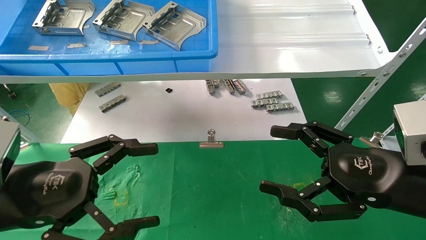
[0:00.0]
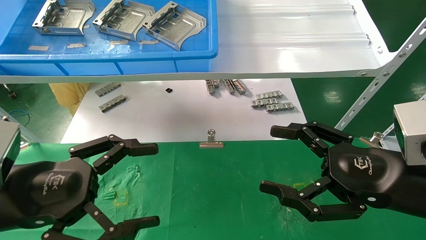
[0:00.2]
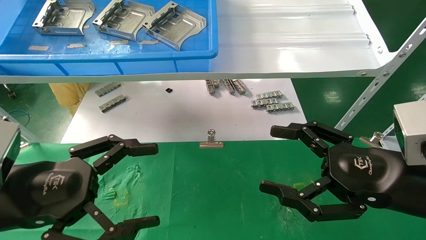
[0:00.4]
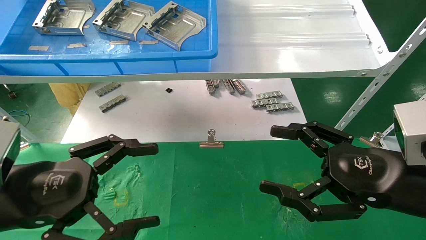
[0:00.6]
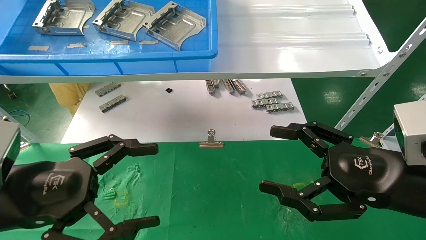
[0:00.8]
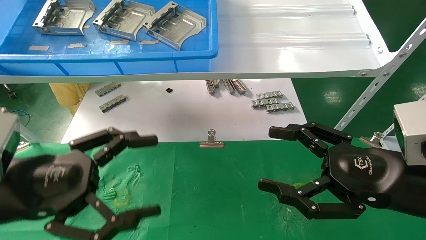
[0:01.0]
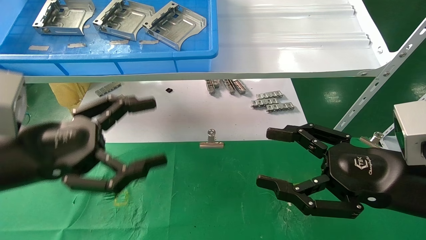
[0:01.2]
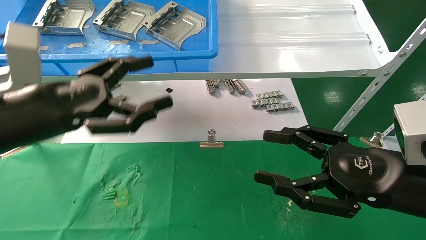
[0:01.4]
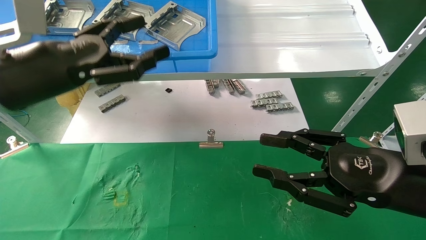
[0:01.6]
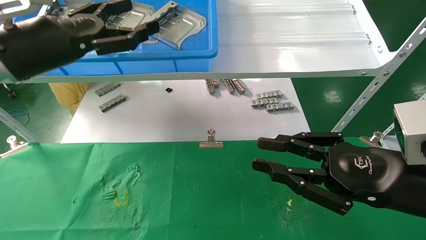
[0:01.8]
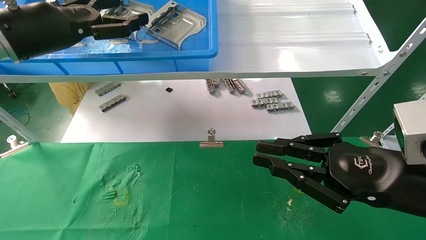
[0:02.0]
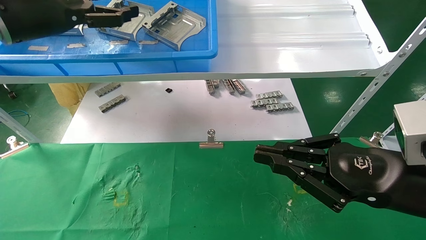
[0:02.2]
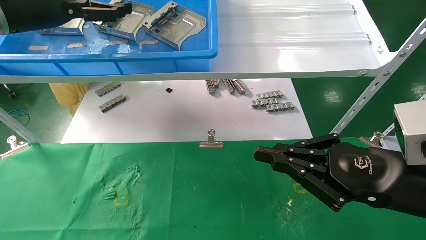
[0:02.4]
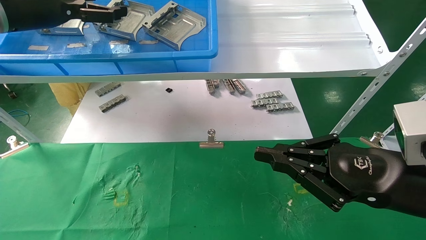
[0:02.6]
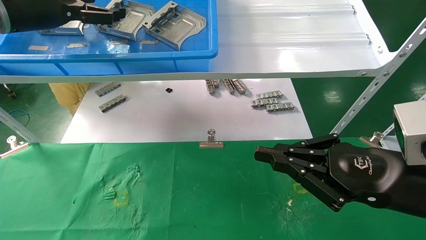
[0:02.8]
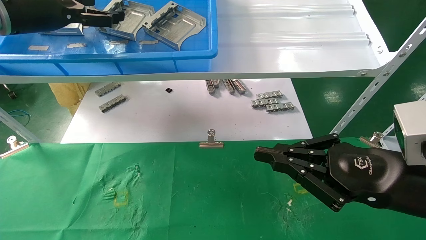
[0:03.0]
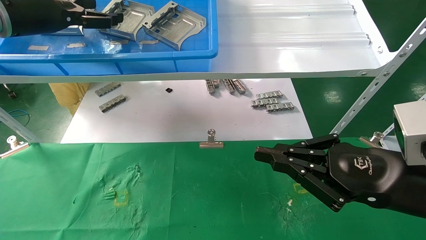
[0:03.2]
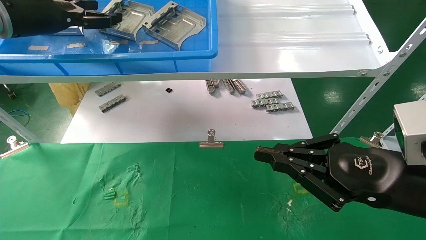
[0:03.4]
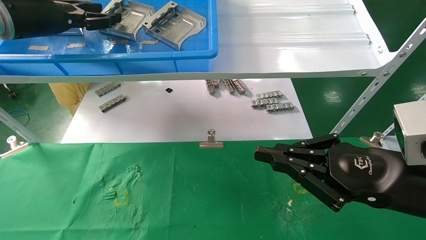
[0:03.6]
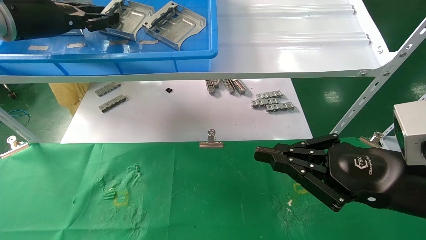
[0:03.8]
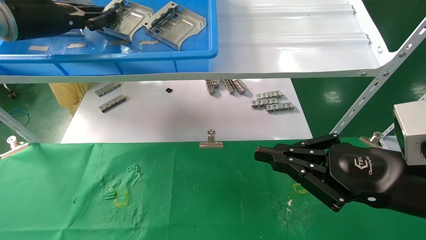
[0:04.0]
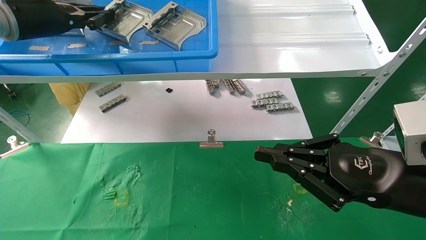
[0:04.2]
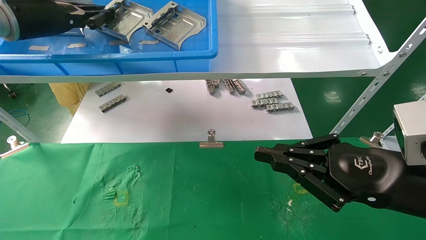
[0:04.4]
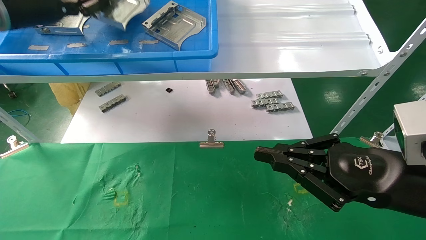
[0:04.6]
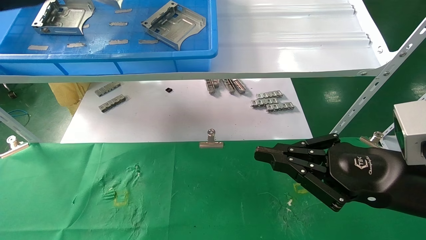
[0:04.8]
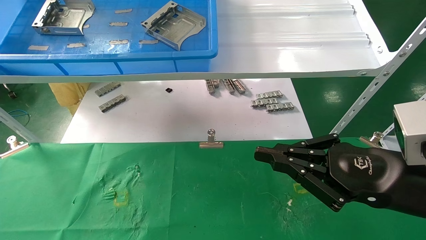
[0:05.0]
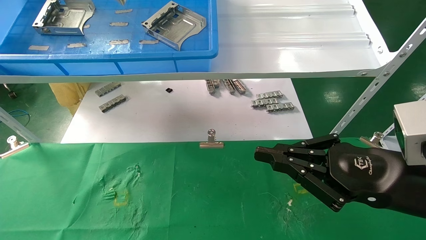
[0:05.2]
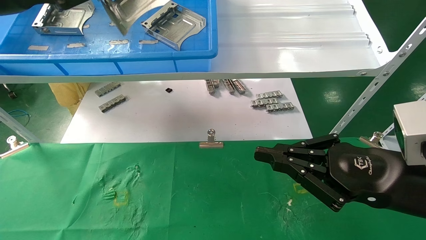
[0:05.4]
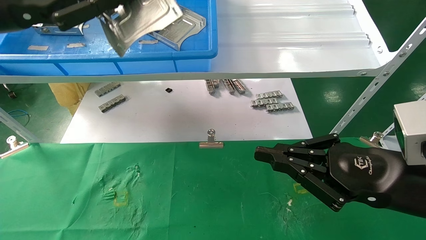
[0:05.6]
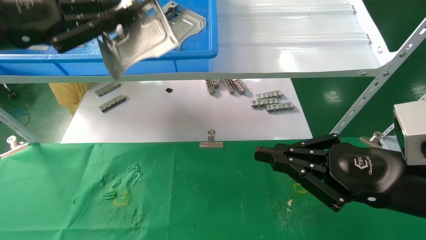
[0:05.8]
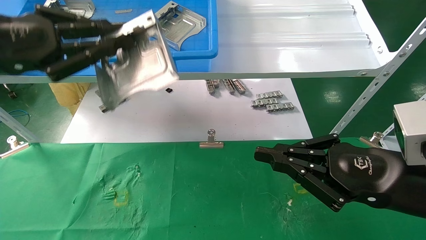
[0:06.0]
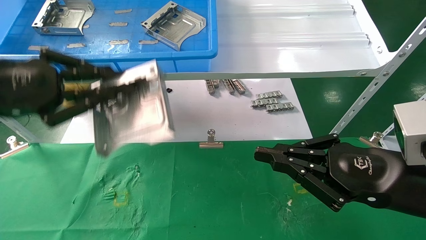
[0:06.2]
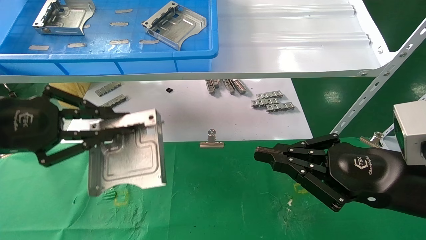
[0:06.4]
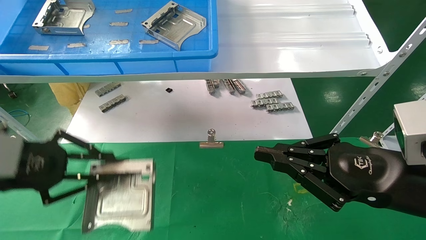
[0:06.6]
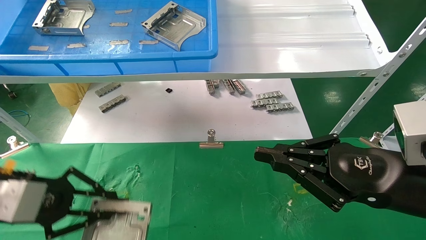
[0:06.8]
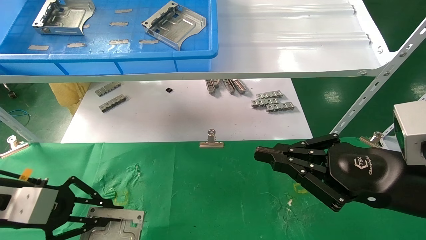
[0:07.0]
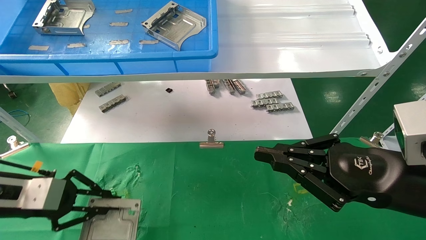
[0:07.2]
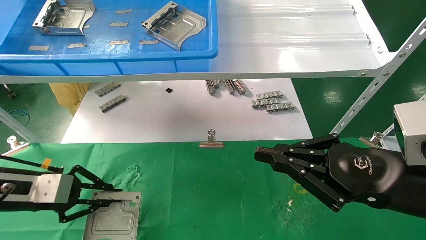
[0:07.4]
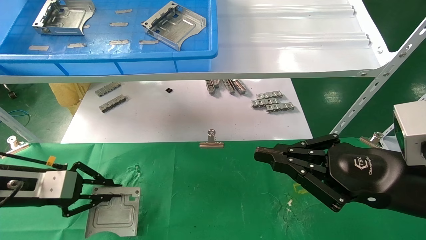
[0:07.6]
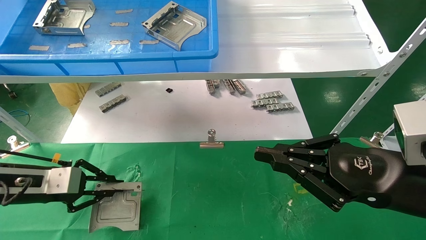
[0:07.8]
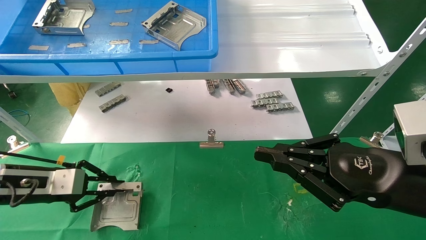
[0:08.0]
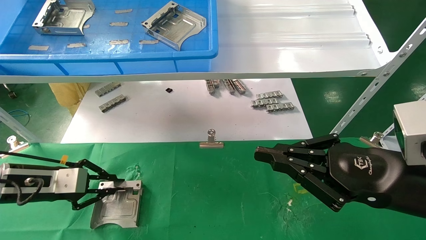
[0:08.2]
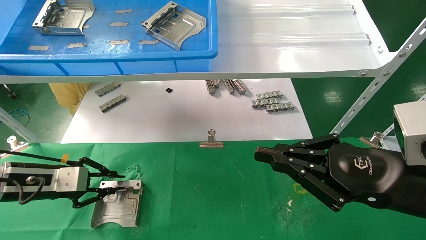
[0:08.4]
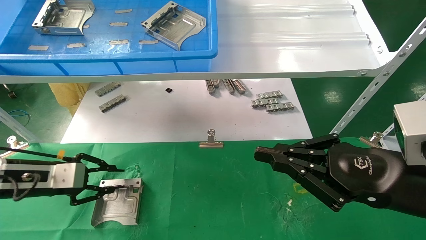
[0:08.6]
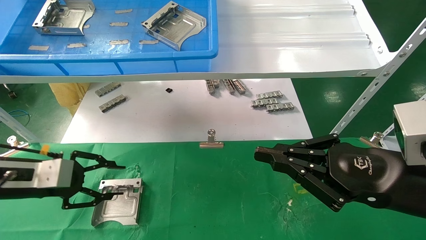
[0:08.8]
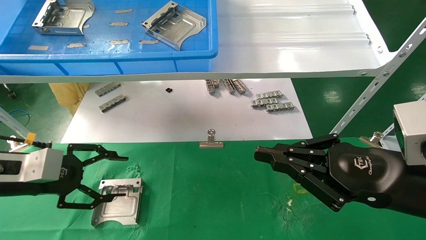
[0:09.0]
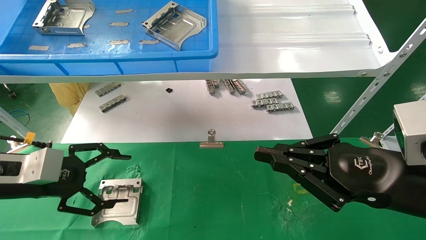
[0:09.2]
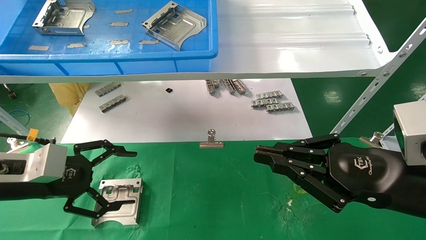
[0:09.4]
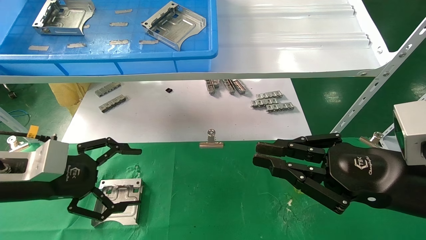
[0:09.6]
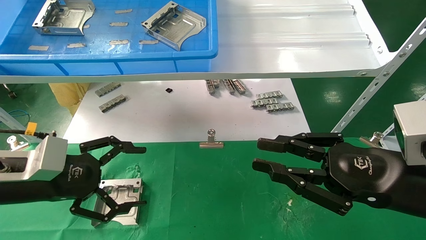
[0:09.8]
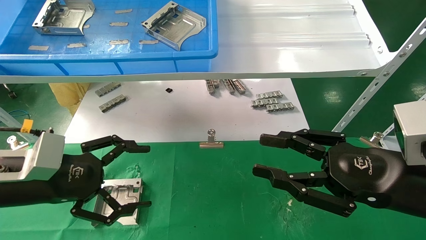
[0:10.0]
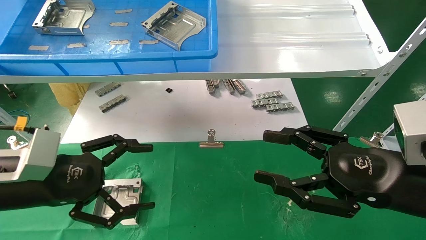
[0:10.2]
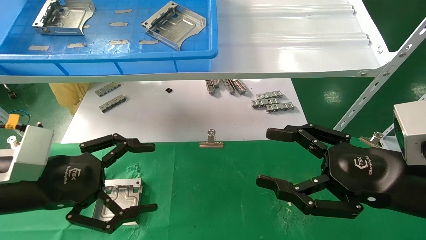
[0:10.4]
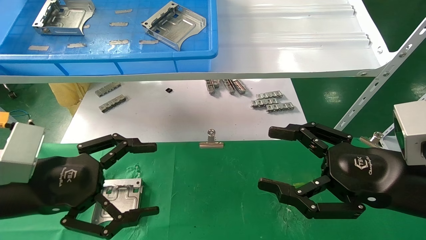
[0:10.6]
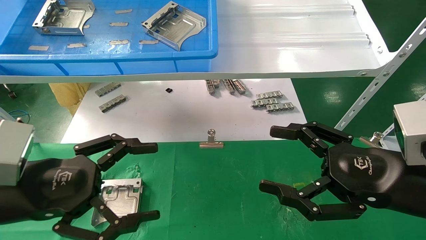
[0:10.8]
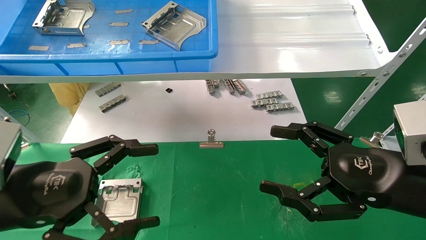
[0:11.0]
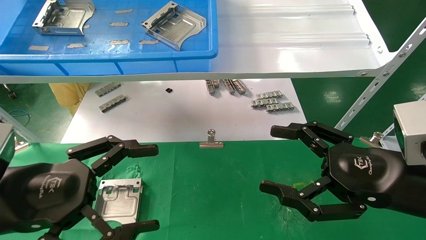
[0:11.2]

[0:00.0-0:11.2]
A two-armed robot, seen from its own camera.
Task of the whole recording: use the mechanical arm to pick up the parts and place them on the table.
Step, 0:01.4 to 0:04.2: Pick up the hard drive bracket from the feeding area.
Step, 0:04.4 to 0:08.4: Place the hard drive bracket into the box.
0:00.0 to 0:01.6: The left gripper heads upward and forward, covering roughly 15 cm. Meanwhile the right gripper closes up.
0:01.6 to 0:03.2: The right gripper closes its fingers. Meanwhile the left gripper goes approximately 15 cm upward, forward and to the left.
0:03.2 to 0:04.8: The left gripper closes up.
0:04.8 to 0:06.4: The left gripper travels downward and backward by some 25 cm.
0:06.4 to 0:08.0: The left gripper moves downward and forward, approximately 15 cm.
0:08.0 to 0:09.6: The left gripper heads backward and to the right, covering some 5 cm, and opens up.
0:09.6 to 0:11.2: The left gripper travels backward by approximately 10 cm; the right gripper opens its fingers.

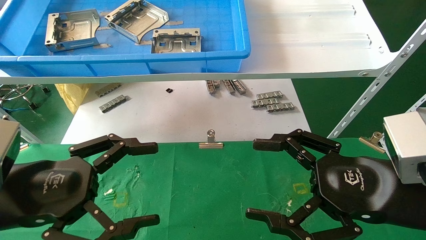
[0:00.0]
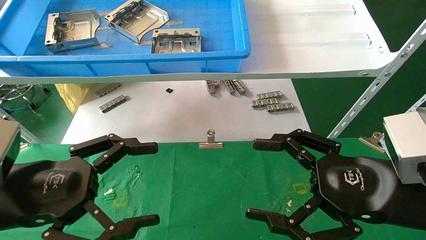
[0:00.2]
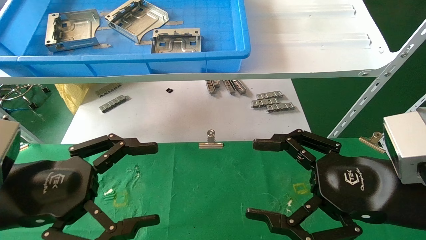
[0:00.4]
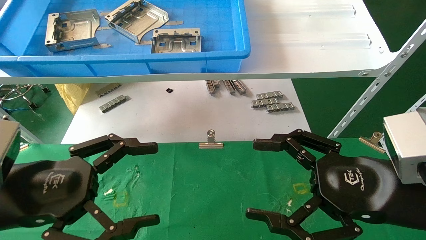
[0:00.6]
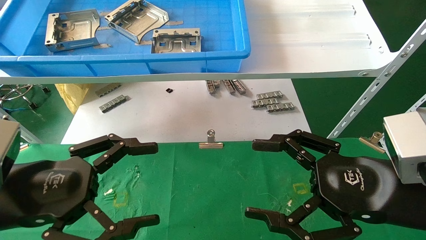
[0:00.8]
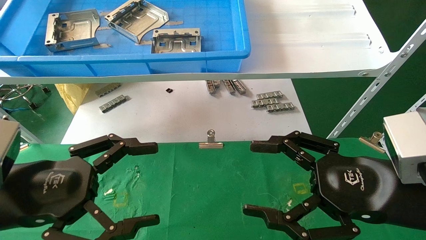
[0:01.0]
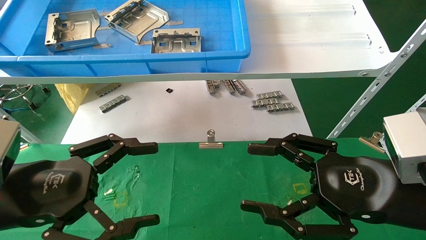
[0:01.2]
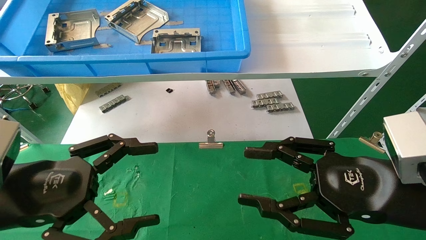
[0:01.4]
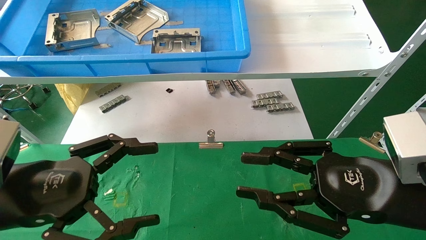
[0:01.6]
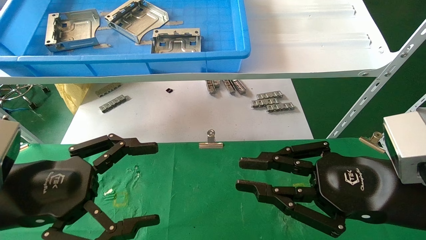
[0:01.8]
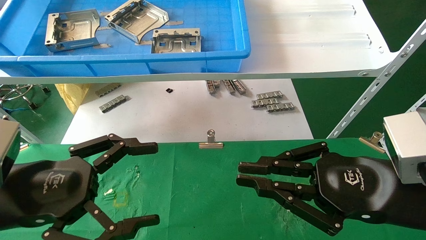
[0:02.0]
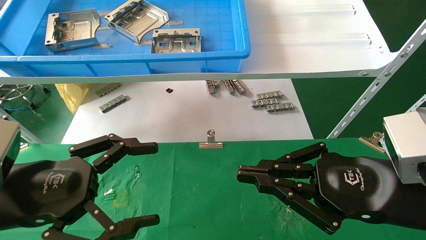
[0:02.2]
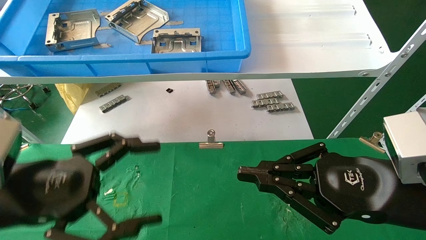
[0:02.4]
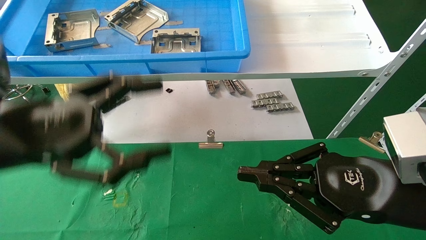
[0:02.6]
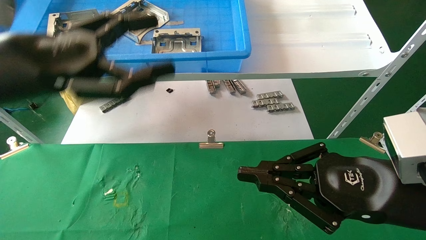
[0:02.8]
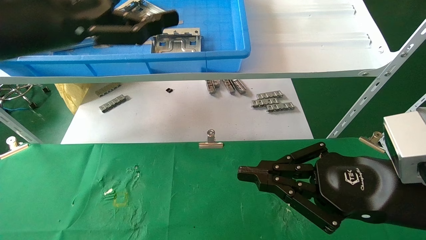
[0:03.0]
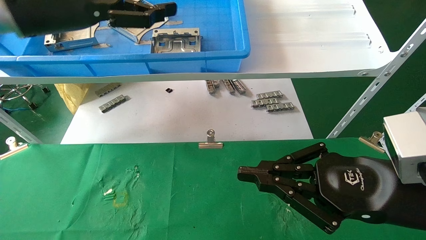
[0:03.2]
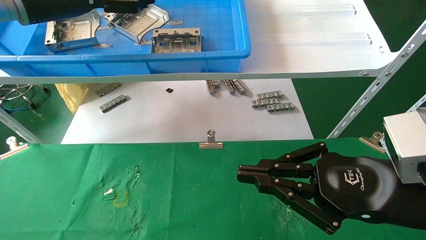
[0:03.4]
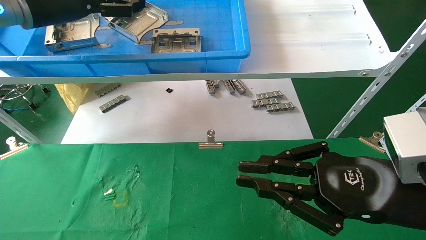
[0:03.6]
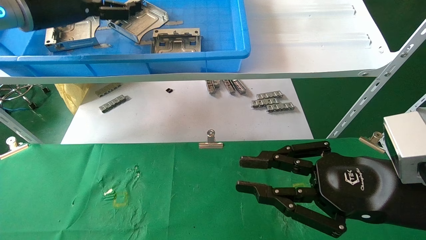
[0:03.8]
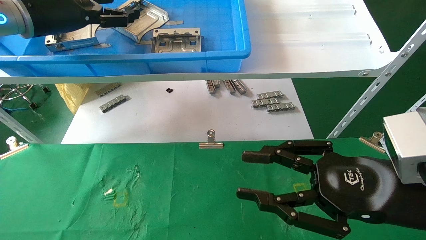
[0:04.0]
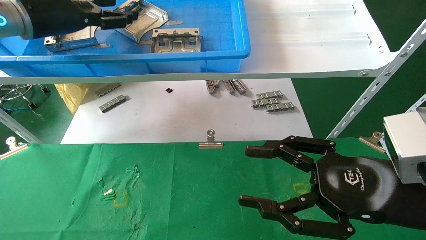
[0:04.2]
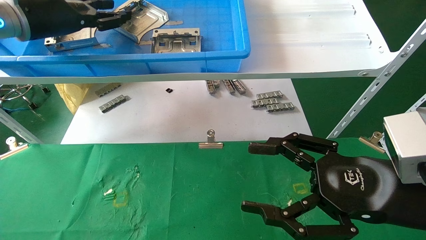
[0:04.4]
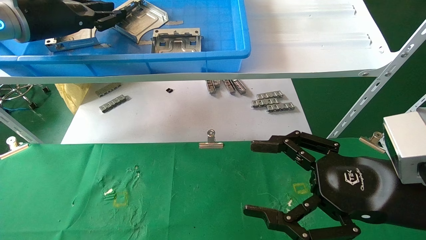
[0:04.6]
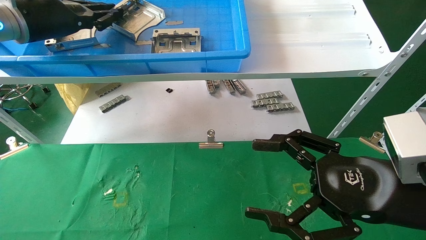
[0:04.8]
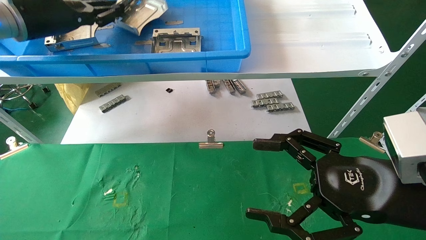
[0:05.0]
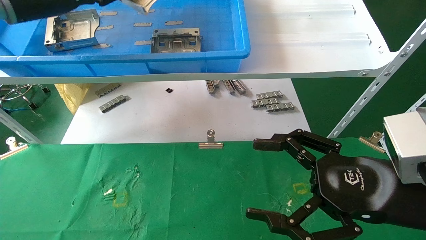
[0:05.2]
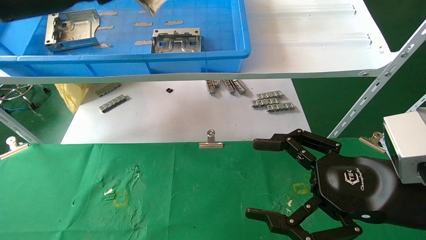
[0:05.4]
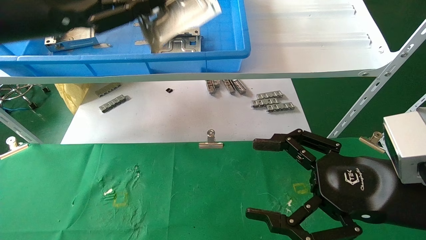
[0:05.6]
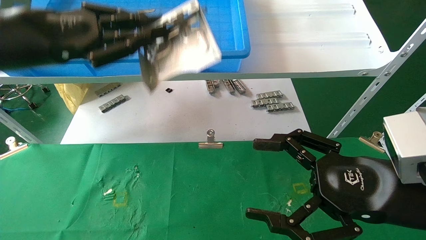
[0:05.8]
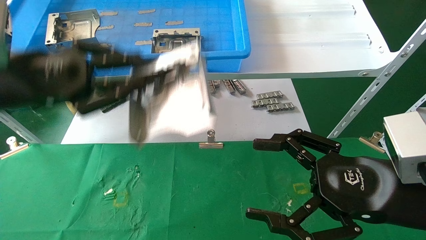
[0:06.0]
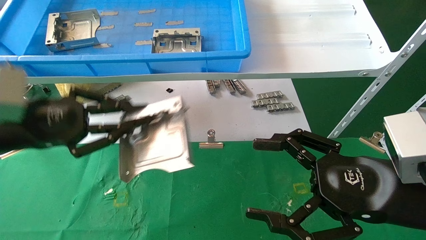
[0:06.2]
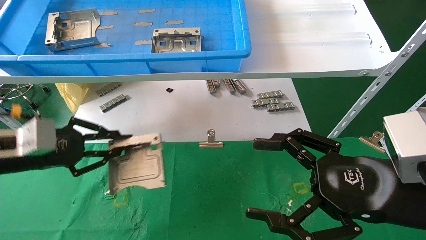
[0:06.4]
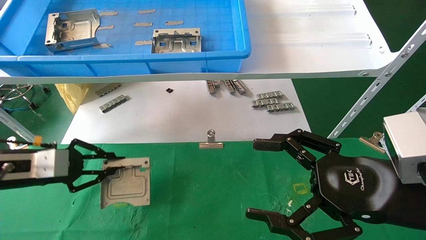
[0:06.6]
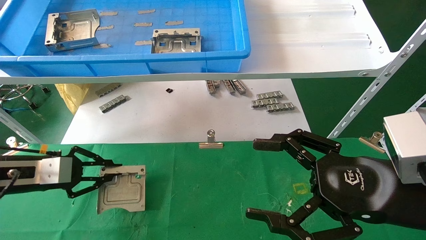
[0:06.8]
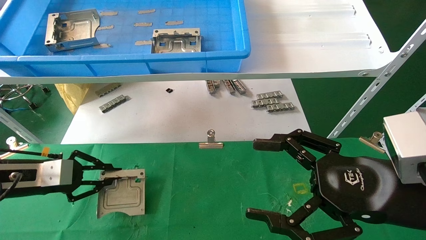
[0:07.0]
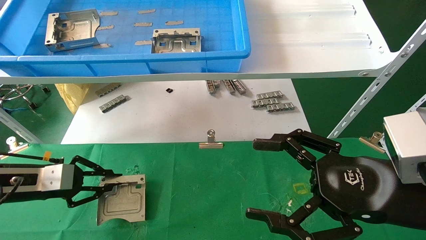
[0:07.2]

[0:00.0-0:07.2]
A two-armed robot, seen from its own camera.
Task of the whole recording: use the mechanical arm to pick up the parts and place them on the table.
Step, 0:02.8 to 0:05.0: Pick up the hard drive bracket from the feeding area.
0:00.0 to 0:01.4: Neither gripper changes place.
0:01.4 to 0:02.8: The left gripper goes approximately 15 cm upward and forward; the right gripper closes its fingers.
0:02.8 to 0:04.4: The right gripper opens its fingers, while the left gripper moves forward and upward, approximately 15 cm, and closes up.
0:04.4 to 0:05.8: The left gripper heads backward, covering roughly 10 cm, and closes its fingers.
0:05.8 to 0:07.2: The left gripper is displaced downward and to the left by about 25 cm.
